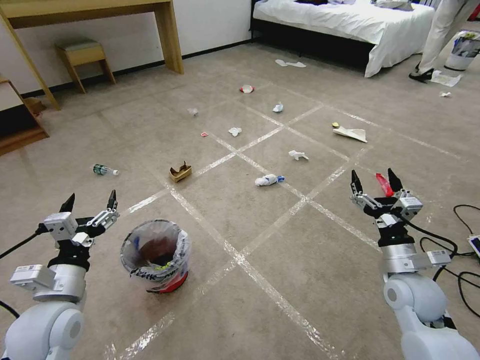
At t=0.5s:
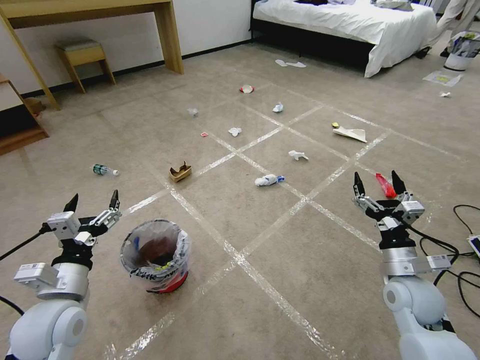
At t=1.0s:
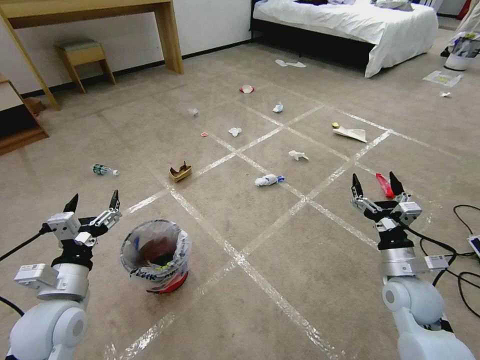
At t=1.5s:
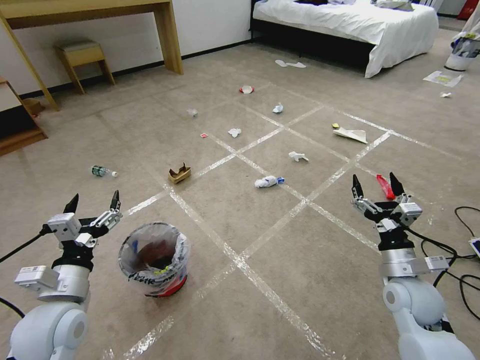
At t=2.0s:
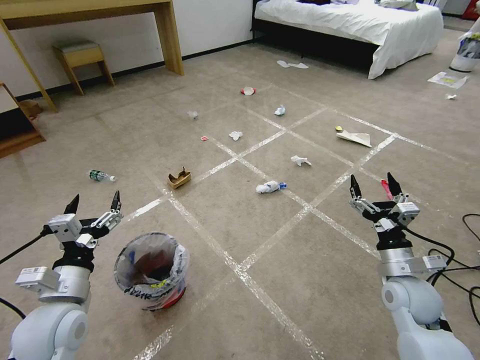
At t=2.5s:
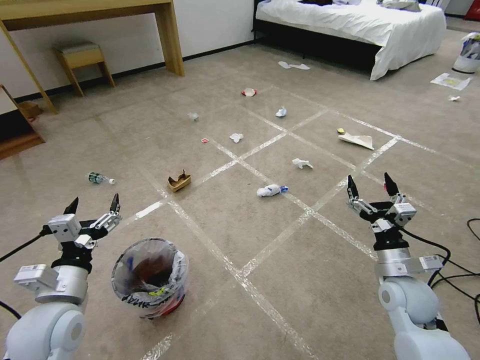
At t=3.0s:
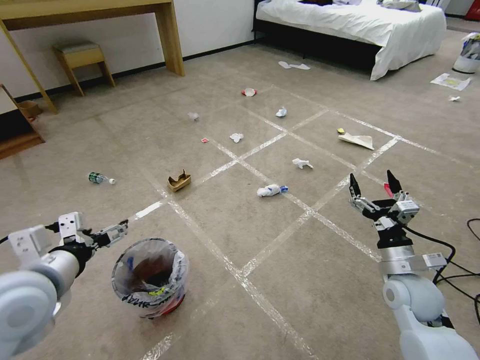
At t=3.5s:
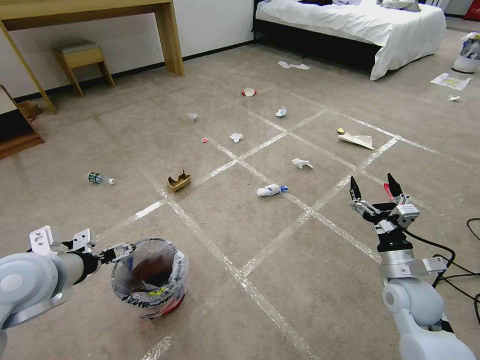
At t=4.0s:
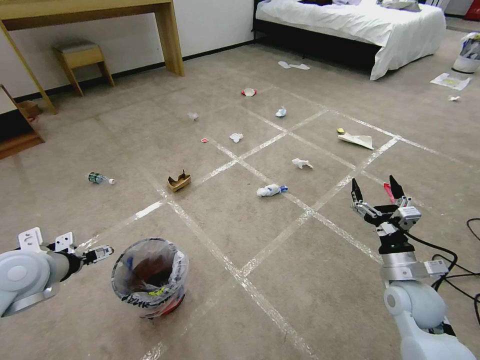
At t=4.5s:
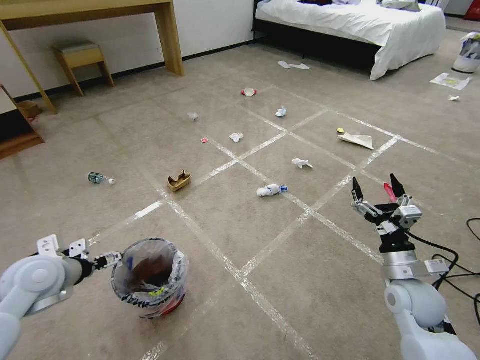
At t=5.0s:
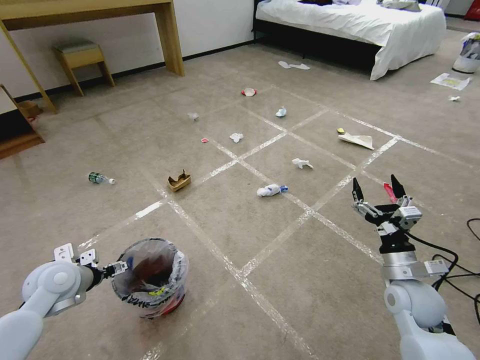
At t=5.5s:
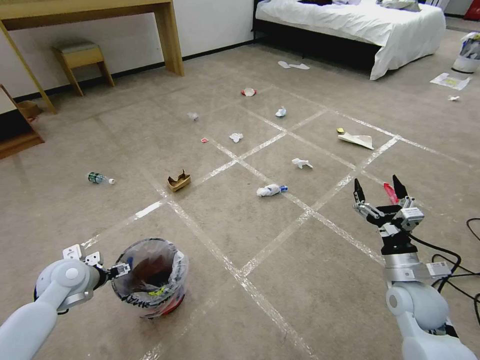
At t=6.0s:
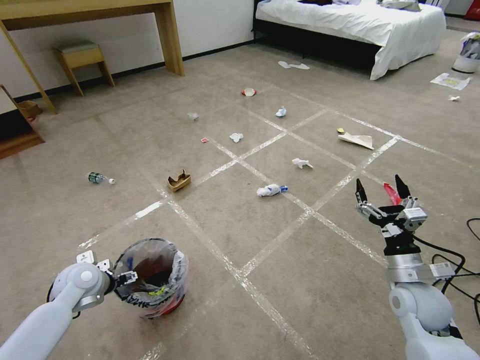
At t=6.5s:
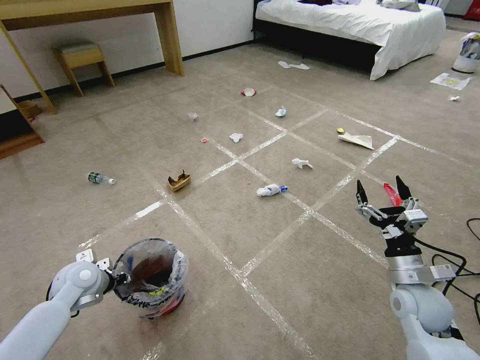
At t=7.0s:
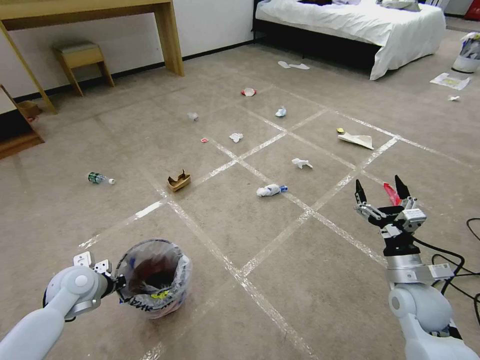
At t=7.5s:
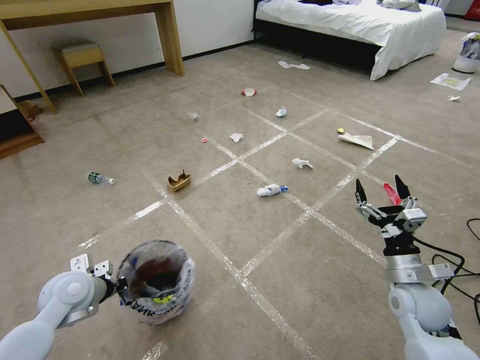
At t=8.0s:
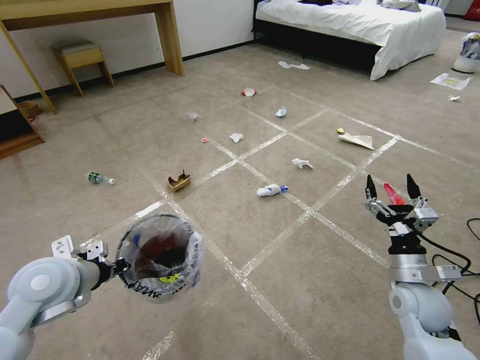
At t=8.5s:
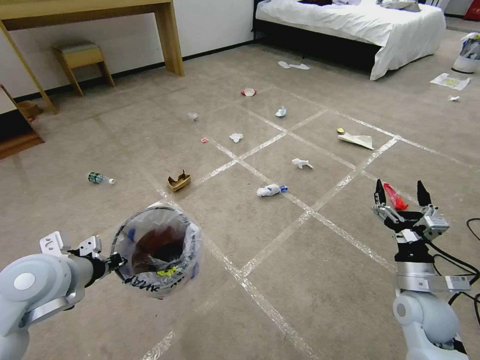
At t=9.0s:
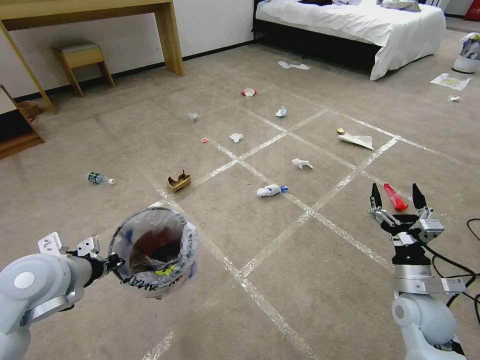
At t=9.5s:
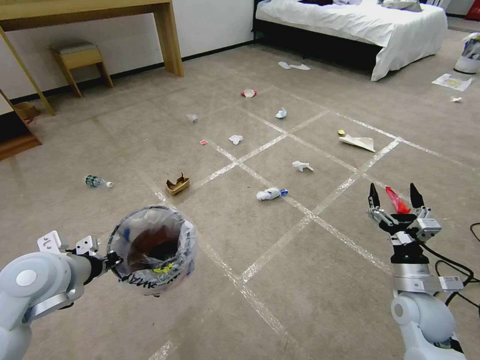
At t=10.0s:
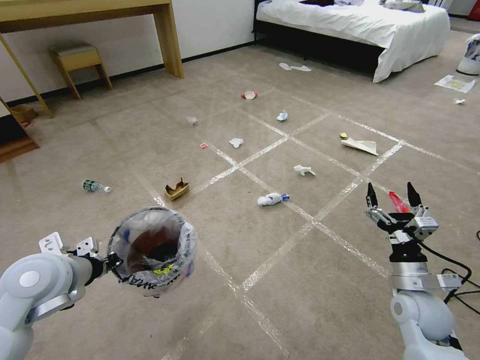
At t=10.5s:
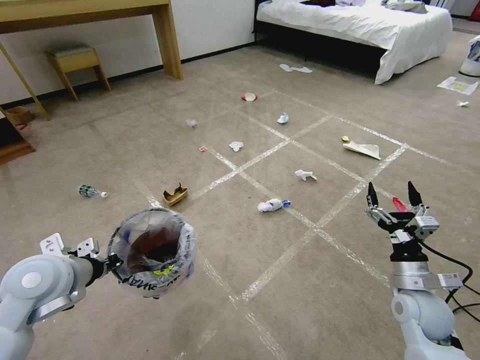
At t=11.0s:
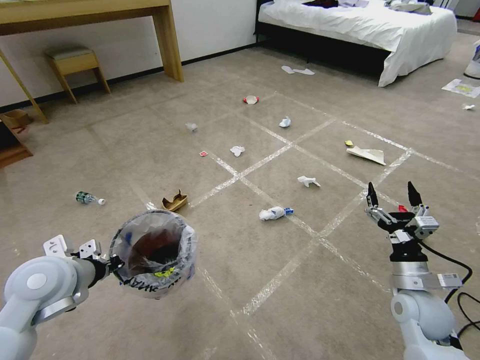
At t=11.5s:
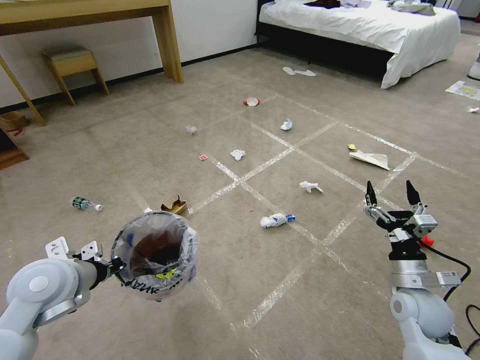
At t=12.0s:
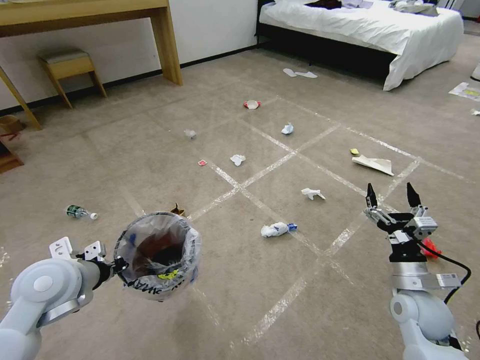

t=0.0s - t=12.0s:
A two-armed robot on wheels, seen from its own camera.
Task of the whole recording: Pick up the trash bin and place the garbage on the floor into it.
t=2.0s - t=4.0s: The left gripper moves to the left, forward and upward, some 10 cm.
t=4.0s - t=6.0s: The left gripper heads downward, covering approximately 15 cm.
t=6.0s - t=8.0s: The left gripper is displaced upward and backward by roughly 15 cm, and closes its fingers.
t=8.0s - t=10.0s: The grippers stay close to where they were, moving slightly.

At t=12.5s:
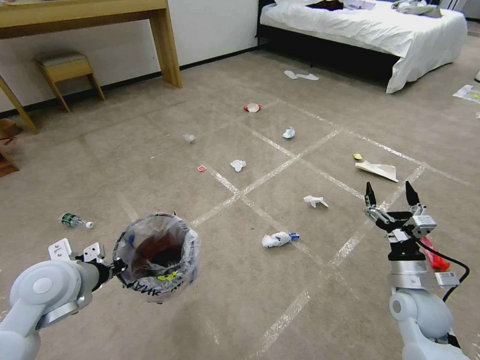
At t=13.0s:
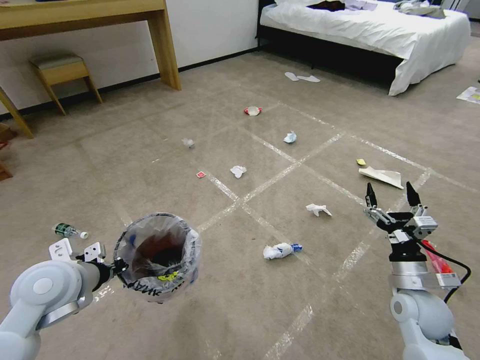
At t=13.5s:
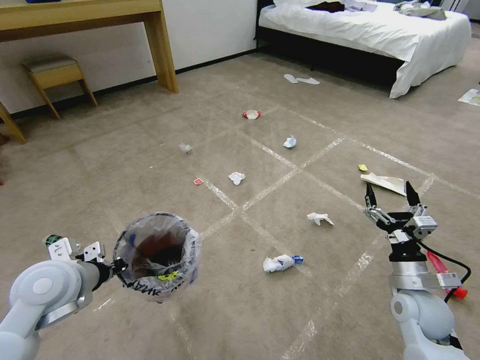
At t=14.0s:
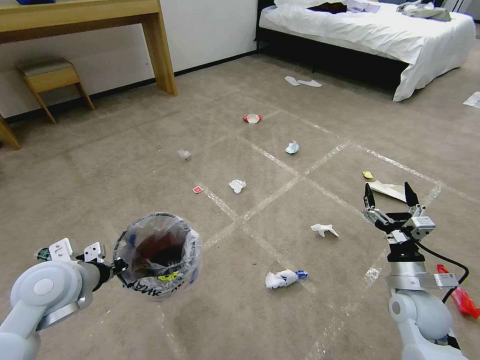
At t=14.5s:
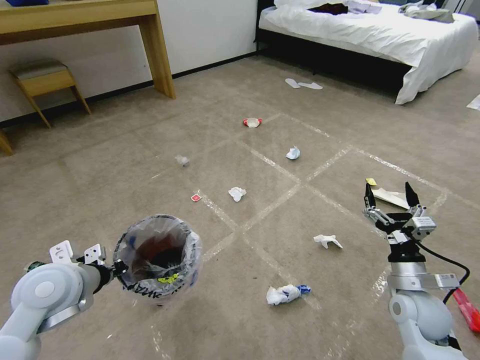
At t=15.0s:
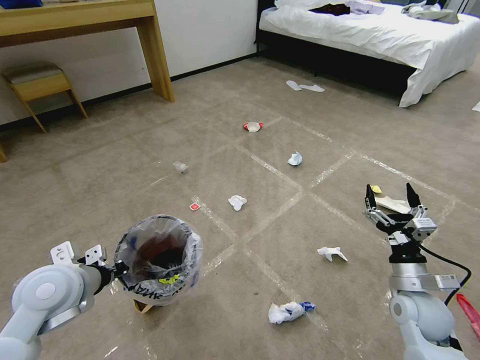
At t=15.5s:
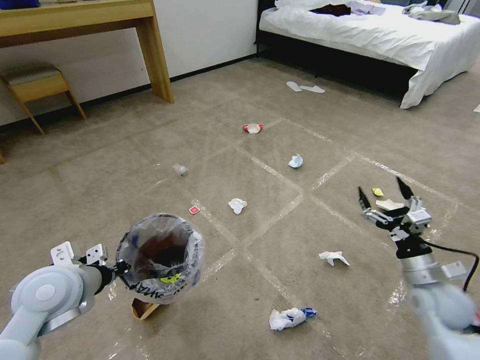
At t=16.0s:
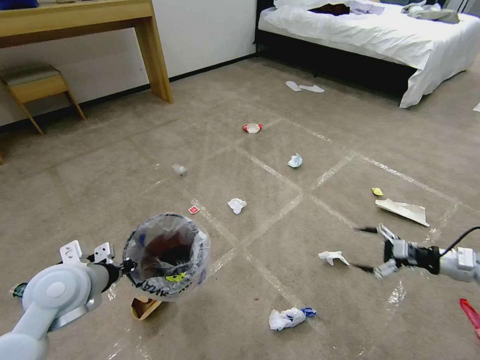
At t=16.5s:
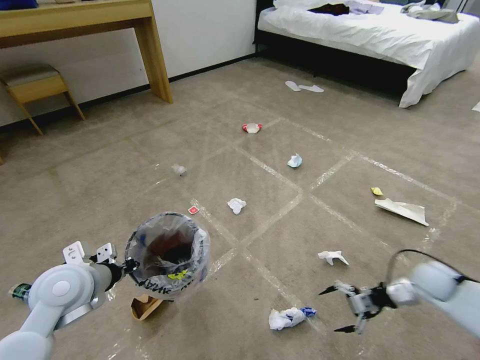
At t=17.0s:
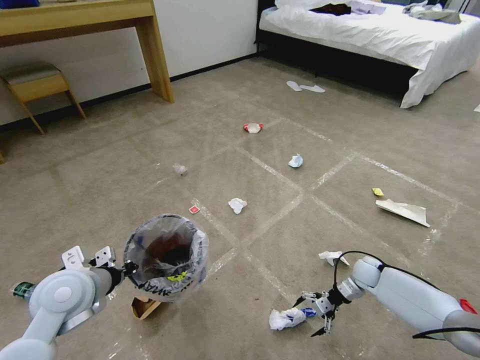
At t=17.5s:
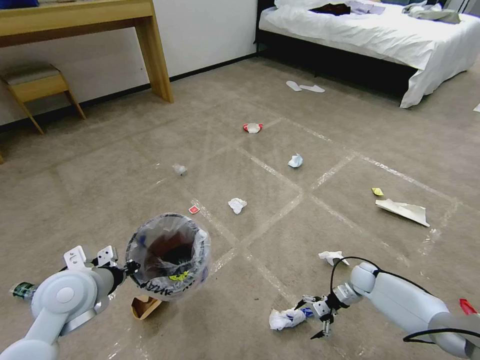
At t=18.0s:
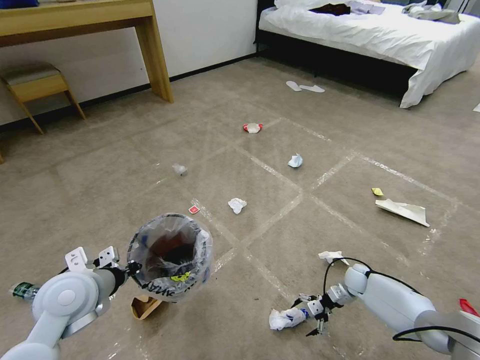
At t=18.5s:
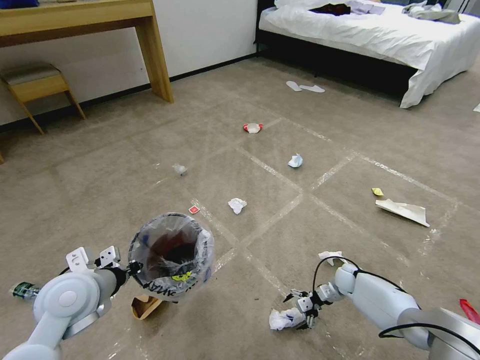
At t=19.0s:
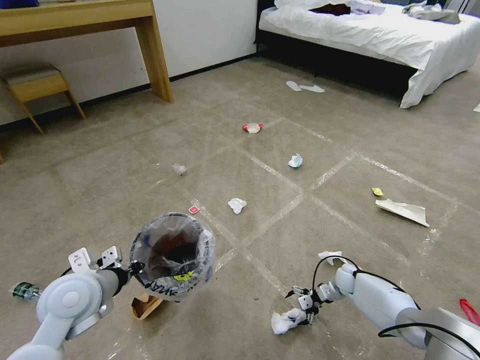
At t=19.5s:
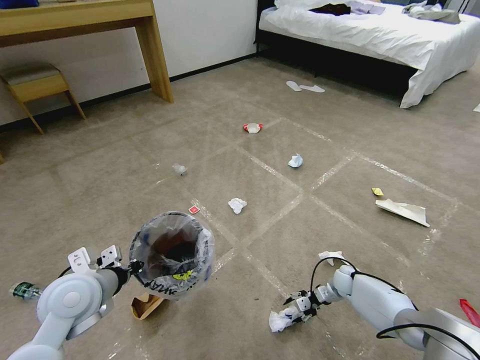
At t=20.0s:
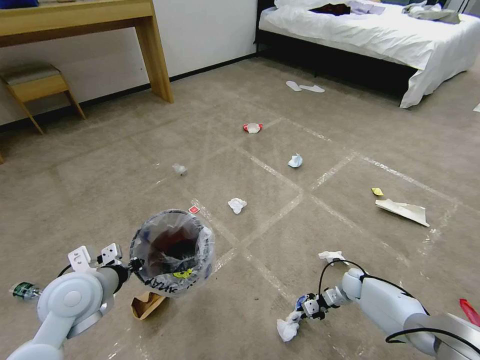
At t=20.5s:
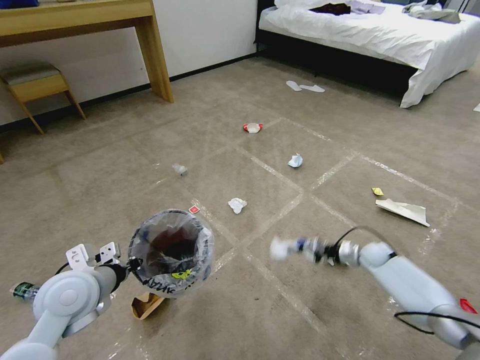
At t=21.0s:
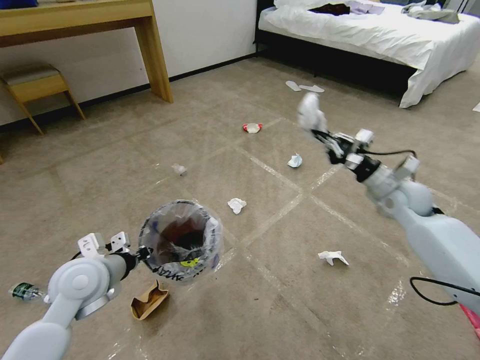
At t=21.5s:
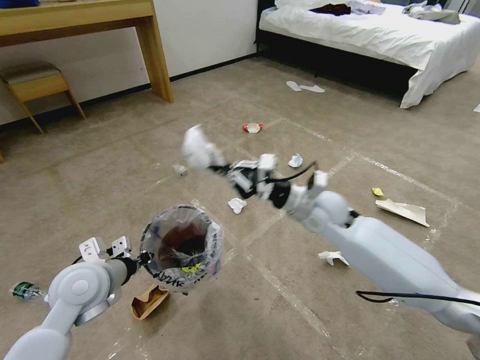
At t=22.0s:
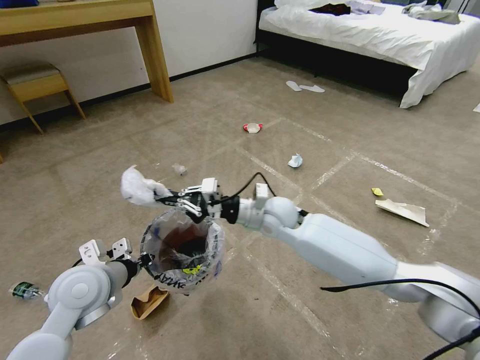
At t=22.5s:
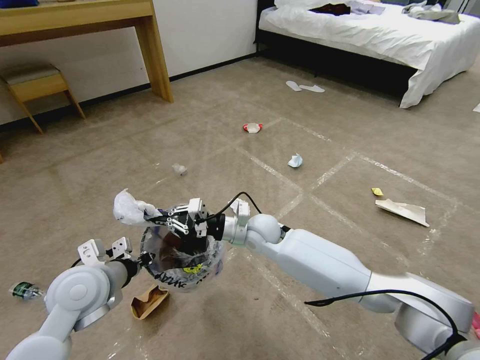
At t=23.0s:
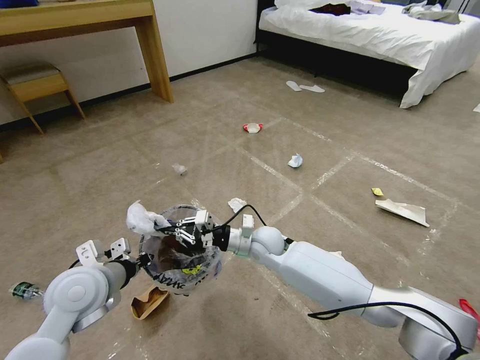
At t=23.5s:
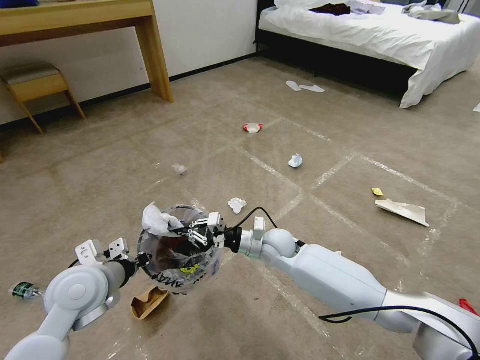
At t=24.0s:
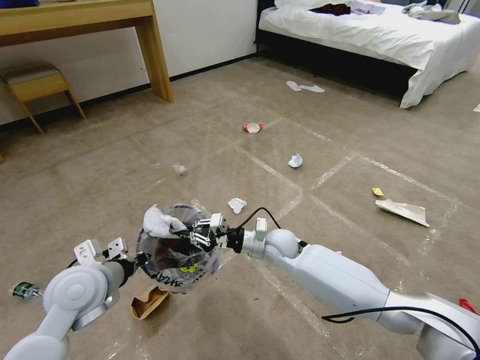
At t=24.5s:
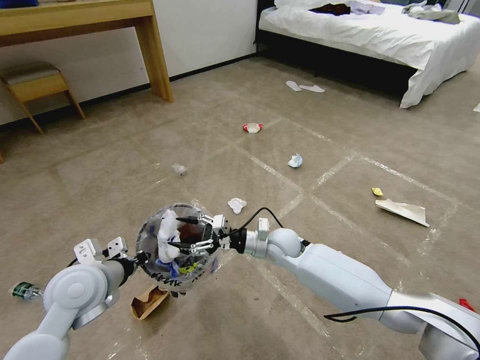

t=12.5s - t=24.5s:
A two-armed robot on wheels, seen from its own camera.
Task of the whole recording: Pick up the trash bin and place the garbage on the floor into it.
t=14.5s - t=16.5s: The right gripper shifts approximately 15 cm to the right, forward and downward.
t=16.5s - t=18.5s: The right gripper goes approximately 20 cm downward, to the left and forward.
t=18.5s - t=20.5s: The right gripper is displaced upward and to the right by approximately 10 cm, and closes.
t=20.5s - t=22.5s: The right gripper travels to the left and upward by some 40 cm.
t=22.5s - t=24.5s: The right gripper is displaced to the right by about 5 cm, and opens.

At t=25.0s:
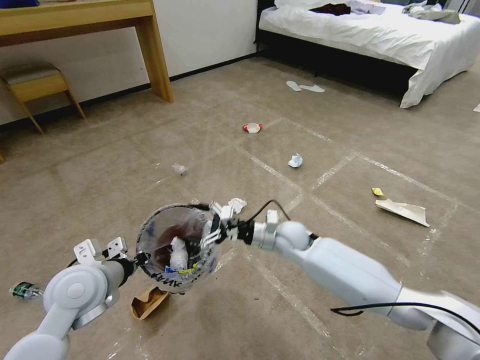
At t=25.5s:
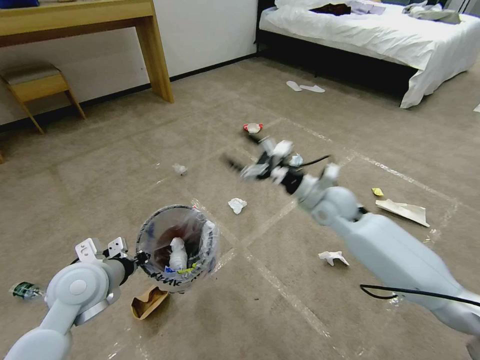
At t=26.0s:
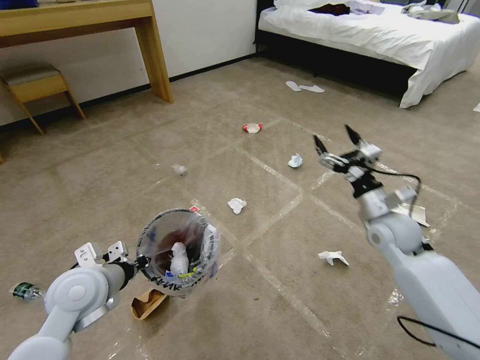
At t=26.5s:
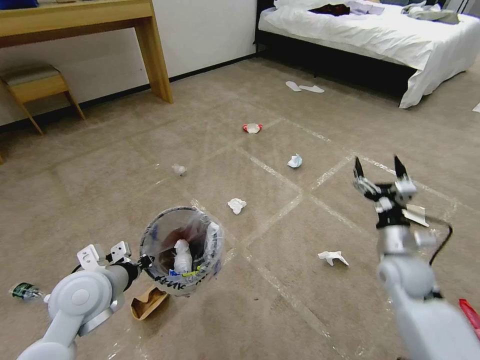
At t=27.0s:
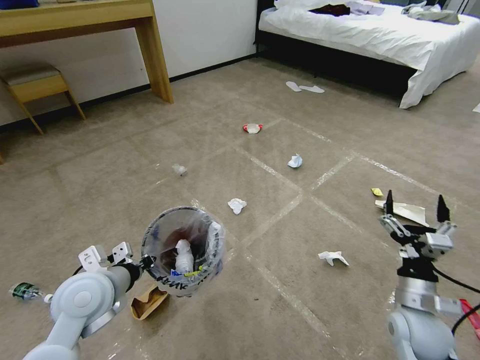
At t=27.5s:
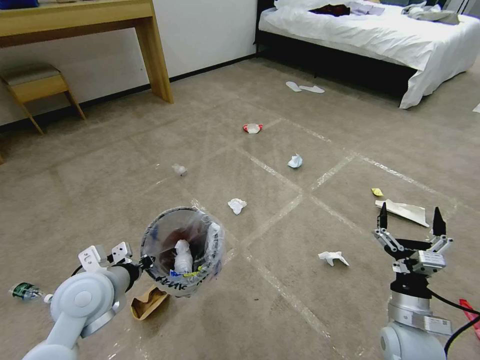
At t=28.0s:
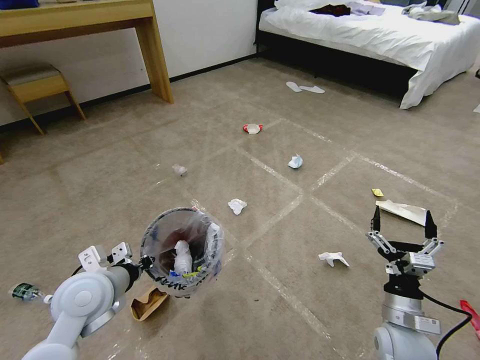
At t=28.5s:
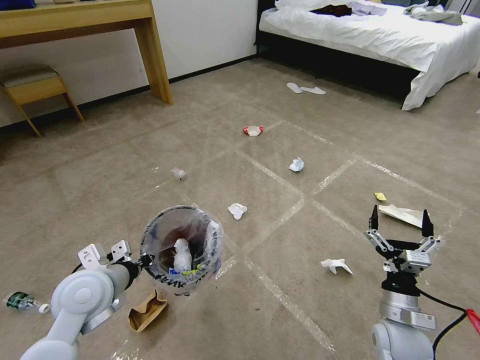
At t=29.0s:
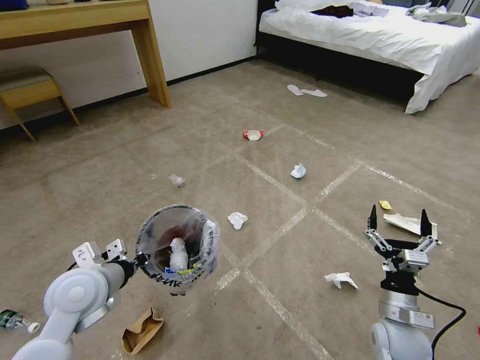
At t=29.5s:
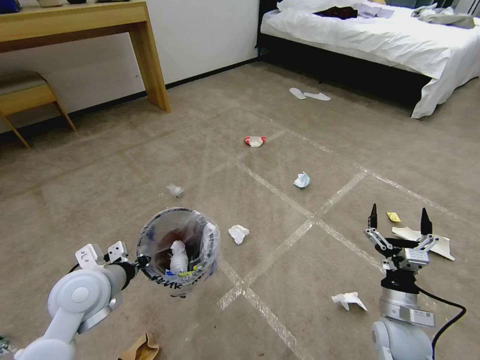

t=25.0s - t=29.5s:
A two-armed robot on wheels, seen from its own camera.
Task of the whole recording: Pick up the trash bin and place the garbage on the floor into it.
t=25.0s - t=27.0s: The right gripper moves to the right and backward, some 30 cm.
